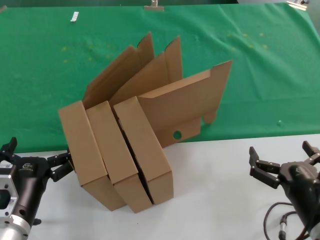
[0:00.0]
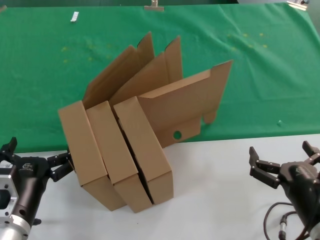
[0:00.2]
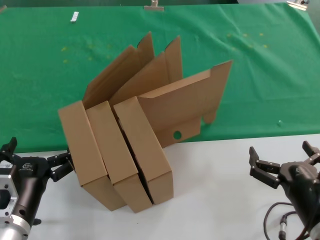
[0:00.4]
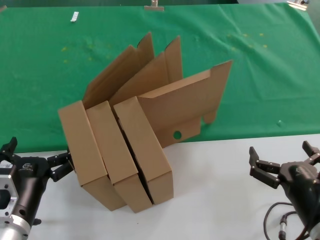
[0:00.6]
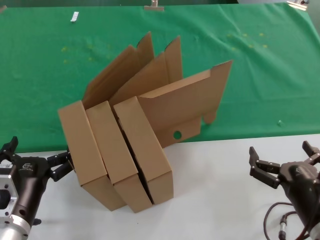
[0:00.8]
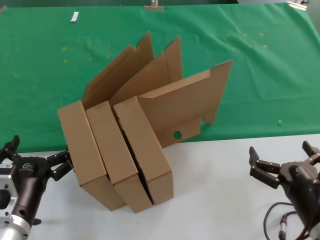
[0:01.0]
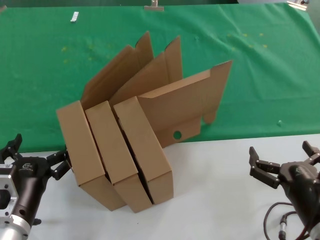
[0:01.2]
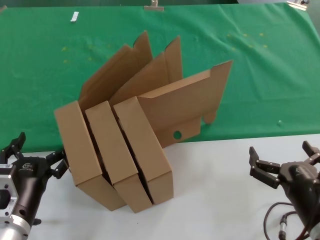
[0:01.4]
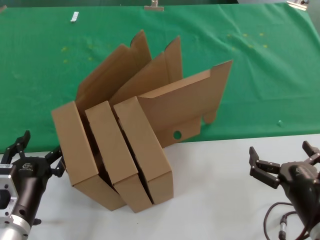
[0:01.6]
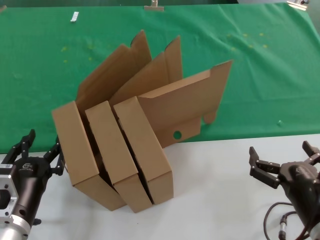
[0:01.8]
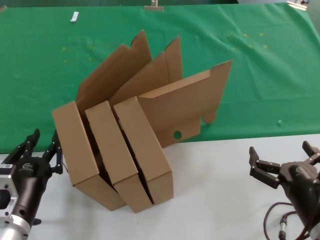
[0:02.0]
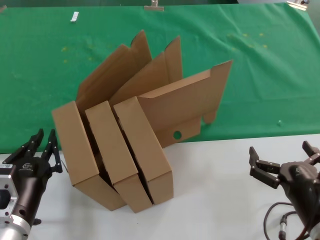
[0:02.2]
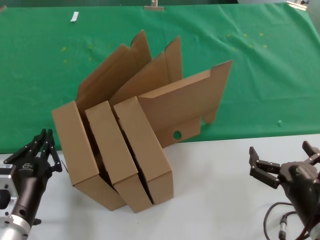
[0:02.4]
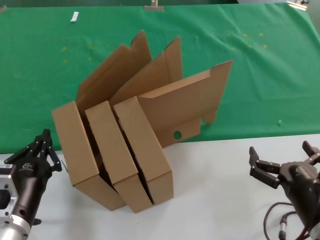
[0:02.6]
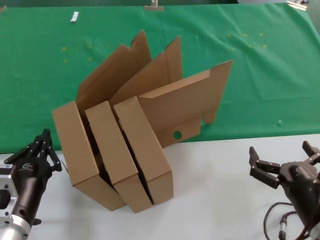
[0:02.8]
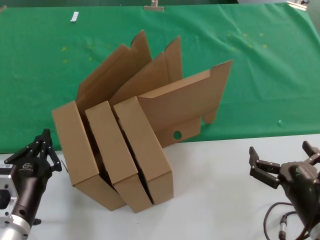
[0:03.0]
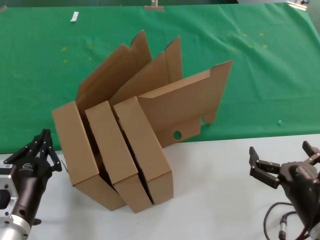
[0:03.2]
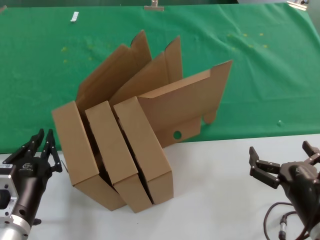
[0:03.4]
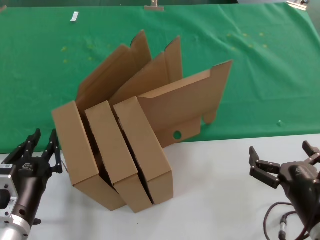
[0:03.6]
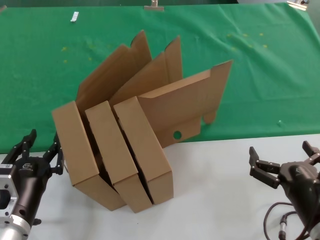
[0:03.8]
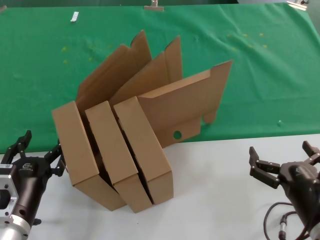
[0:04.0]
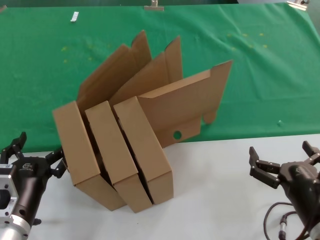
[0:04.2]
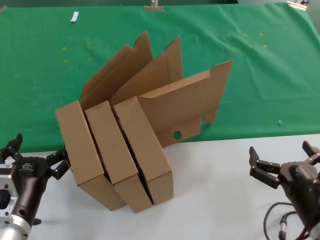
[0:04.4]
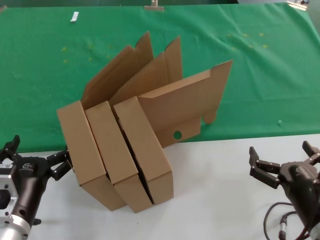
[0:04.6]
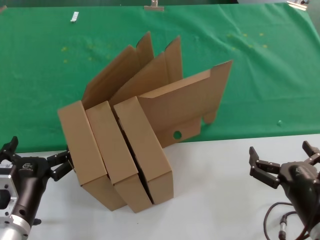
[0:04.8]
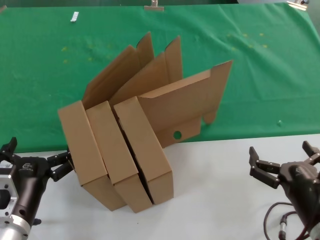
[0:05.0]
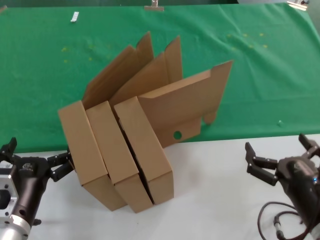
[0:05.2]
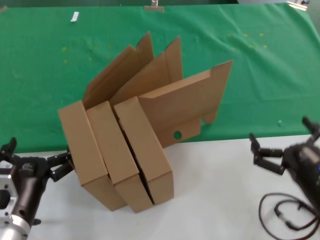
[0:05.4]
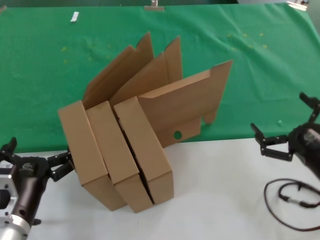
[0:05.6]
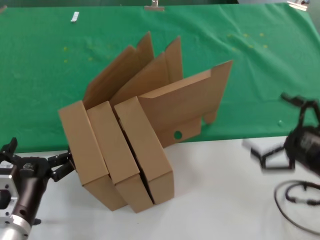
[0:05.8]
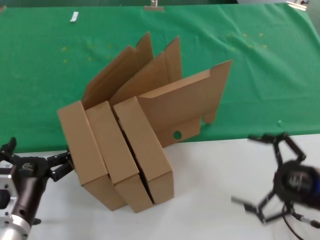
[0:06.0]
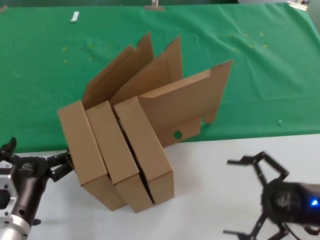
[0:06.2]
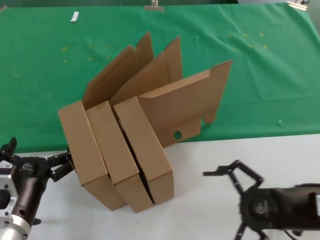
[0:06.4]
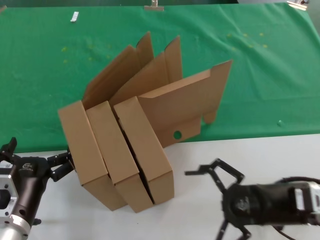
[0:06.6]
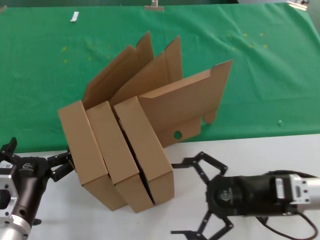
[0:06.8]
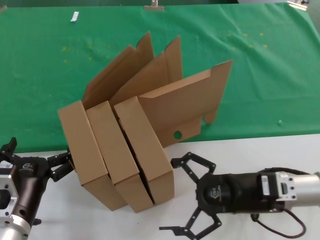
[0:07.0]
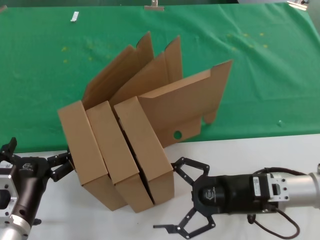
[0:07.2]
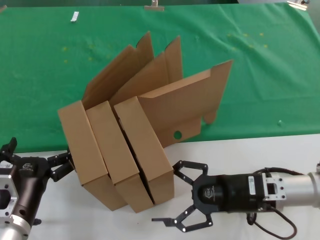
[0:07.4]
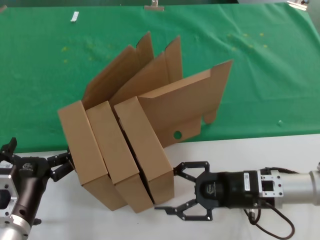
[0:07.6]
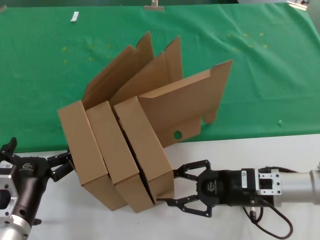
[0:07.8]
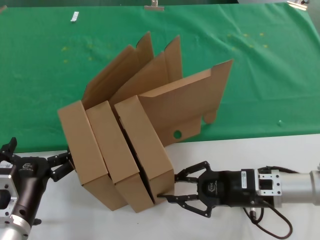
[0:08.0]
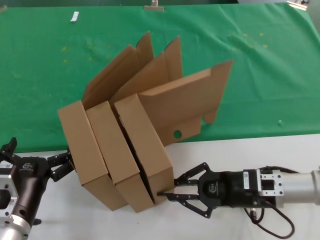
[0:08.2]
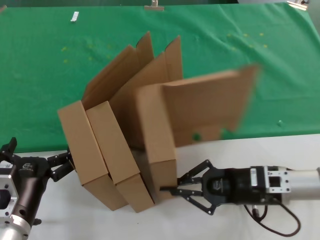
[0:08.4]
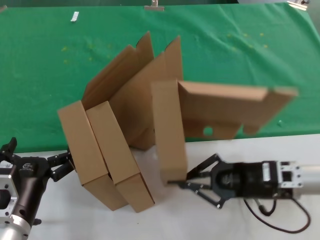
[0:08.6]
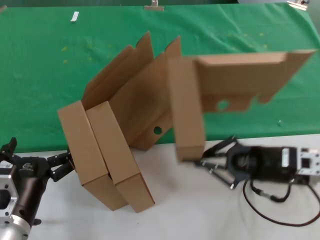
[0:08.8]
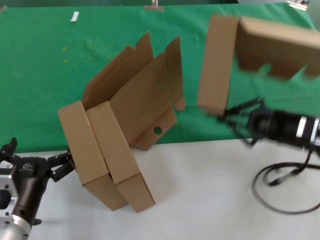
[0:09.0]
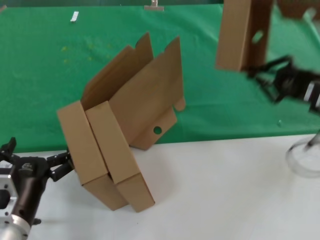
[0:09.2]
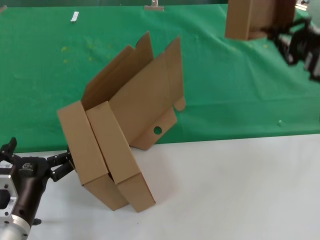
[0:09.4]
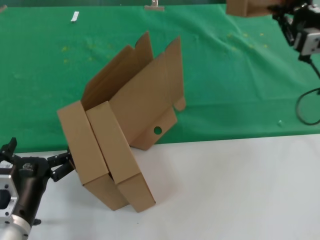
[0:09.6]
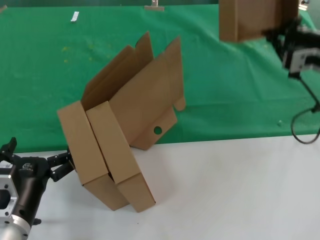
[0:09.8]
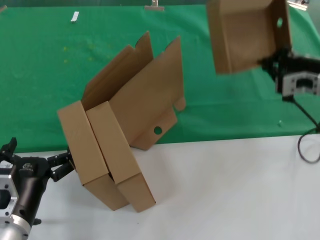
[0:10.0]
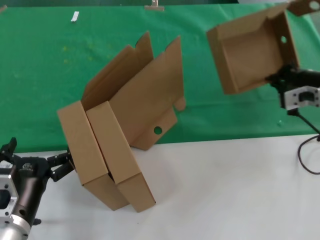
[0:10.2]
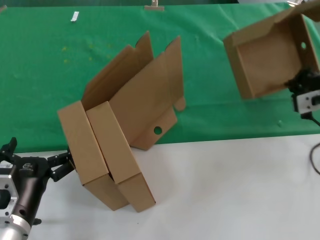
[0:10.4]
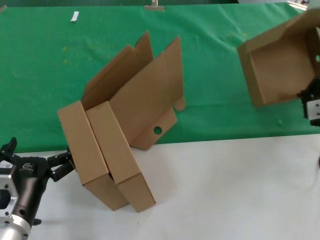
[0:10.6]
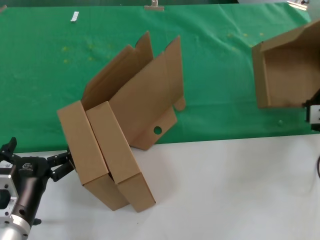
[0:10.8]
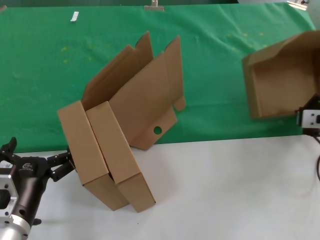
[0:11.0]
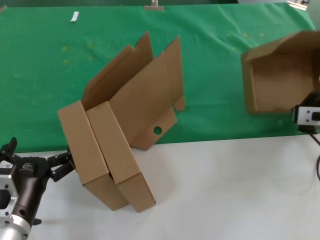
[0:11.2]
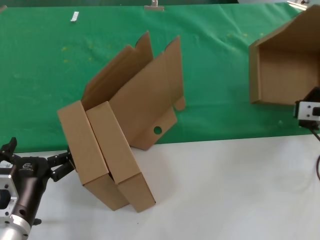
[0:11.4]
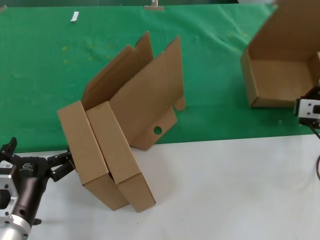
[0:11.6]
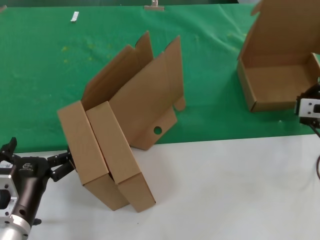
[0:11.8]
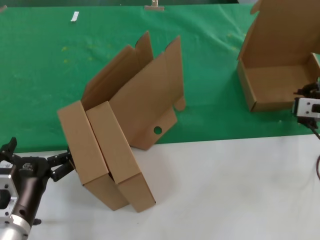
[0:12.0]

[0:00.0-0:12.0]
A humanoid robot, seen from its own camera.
Task of the whole recording: pick up the paper box and put it at the back.
Step, 0:00.0 to 0:08.4: Grasp the paper box.
0:00.0 to 0:04.4: Neither hand changes place.
0:04.4 to 0:06.0: The right hand moves to the right and forward, some 15 cm.
0:06.0 to 0:07.6: The right hand travels to the left and forward by about 15 cm.
0:07.6 to 0:09.0: The right hand heads to the right and upward, covering roughly 10 cm.
0:09.0 to 0:10.4: The right hand heads upward and forward, covering some 10 cm.
0:10.4 to 0:12.0: The hands stay close to where they were, moving slightly.

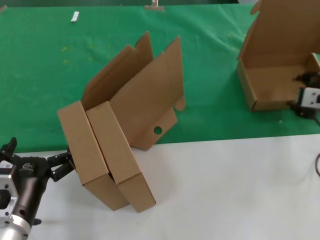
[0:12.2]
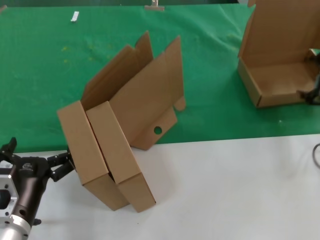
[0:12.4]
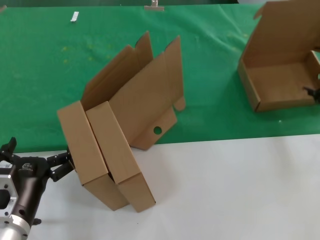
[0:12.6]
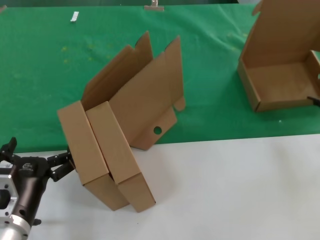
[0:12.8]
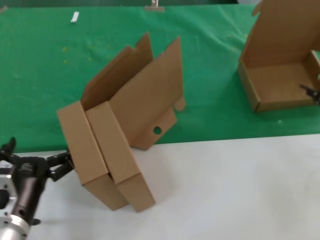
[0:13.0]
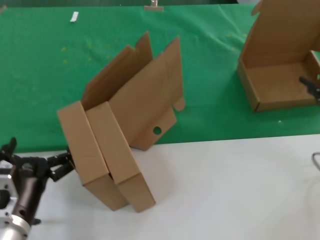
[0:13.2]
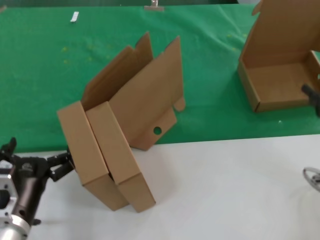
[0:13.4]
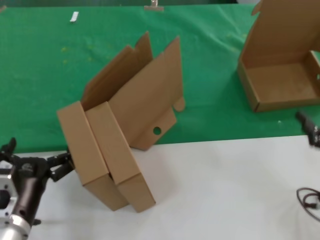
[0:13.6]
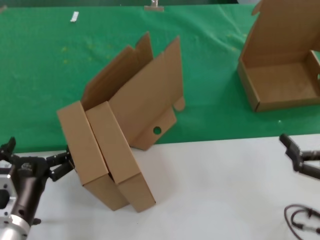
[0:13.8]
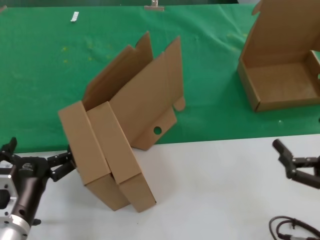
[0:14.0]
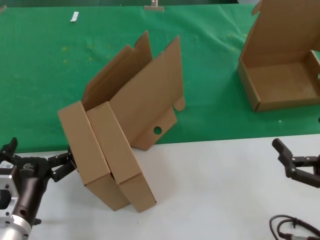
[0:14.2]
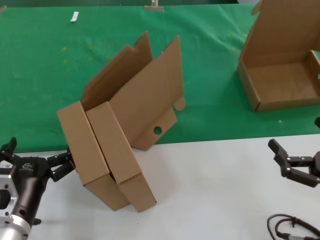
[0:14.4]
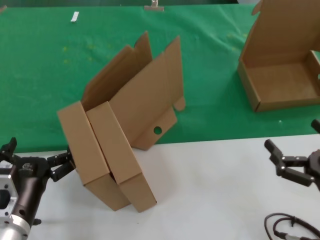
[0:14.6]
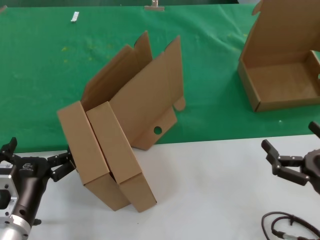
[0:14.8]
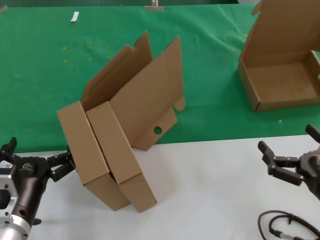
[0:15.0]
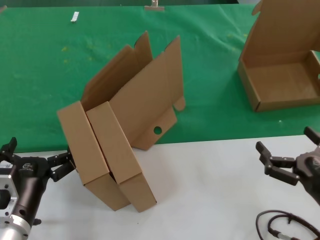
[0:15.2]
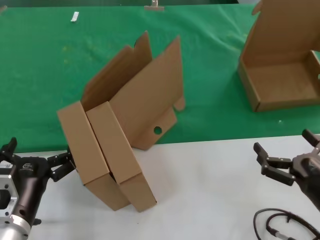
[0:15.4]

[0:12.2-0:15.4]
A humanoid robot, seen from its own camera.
Task of the whole recording: pick up the paper box and put it at the back.
0:12.2 to 0:13.8: The right hand travels backward and downward by roughly 25 cm.
0:13.8 to 0:15.4: The right hand goes roughly 10 cm to the left.
